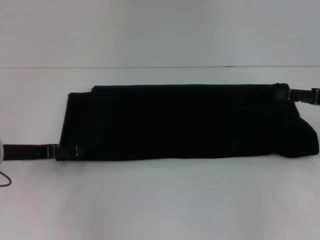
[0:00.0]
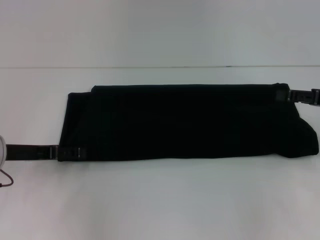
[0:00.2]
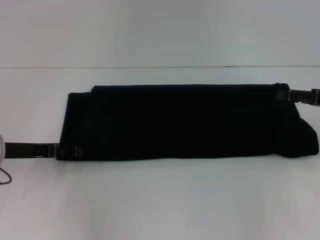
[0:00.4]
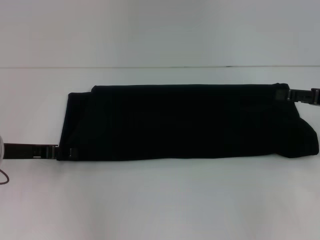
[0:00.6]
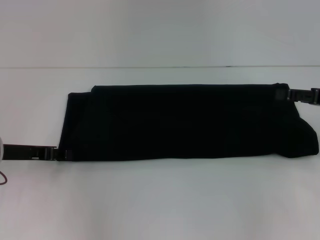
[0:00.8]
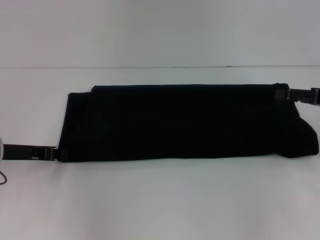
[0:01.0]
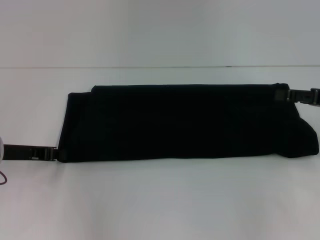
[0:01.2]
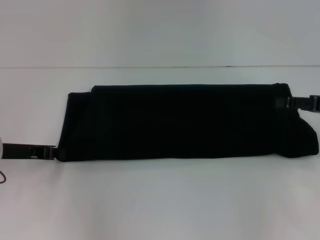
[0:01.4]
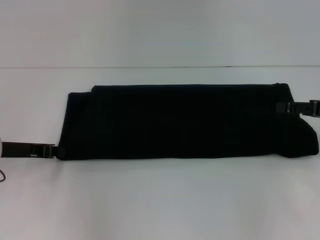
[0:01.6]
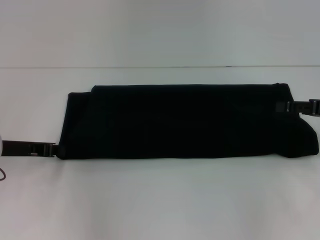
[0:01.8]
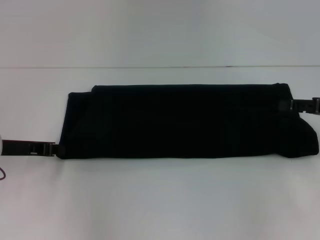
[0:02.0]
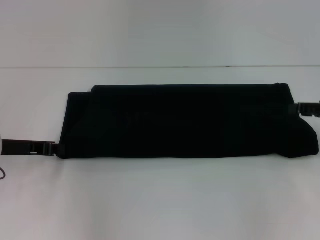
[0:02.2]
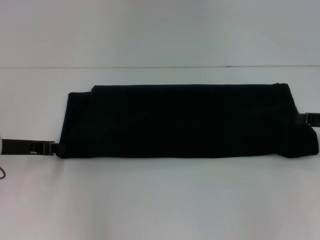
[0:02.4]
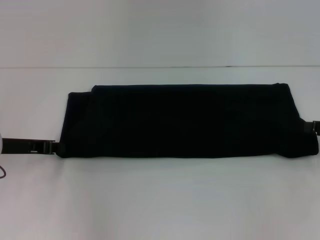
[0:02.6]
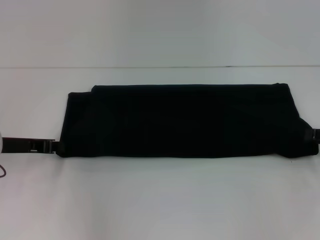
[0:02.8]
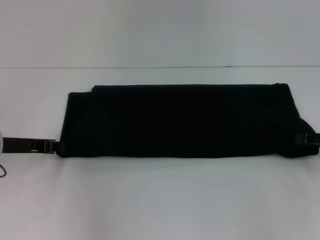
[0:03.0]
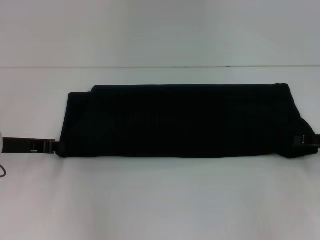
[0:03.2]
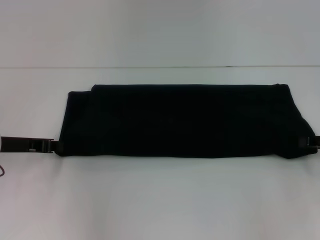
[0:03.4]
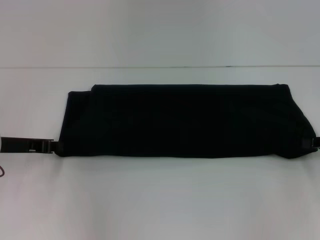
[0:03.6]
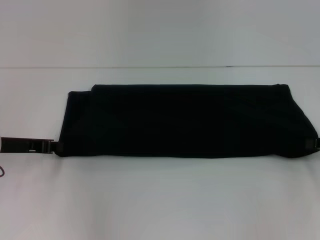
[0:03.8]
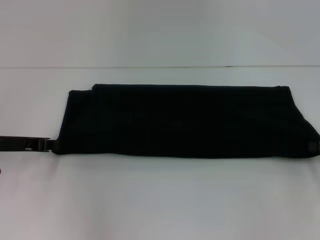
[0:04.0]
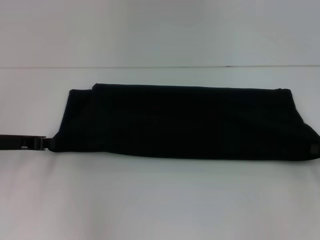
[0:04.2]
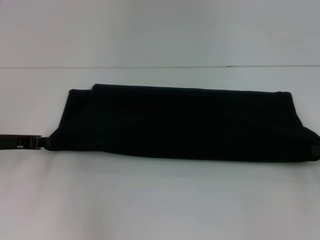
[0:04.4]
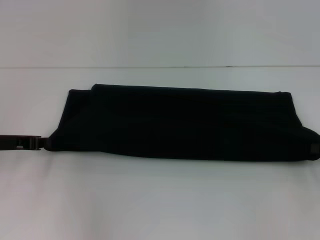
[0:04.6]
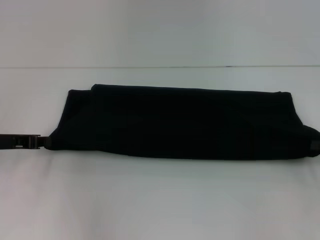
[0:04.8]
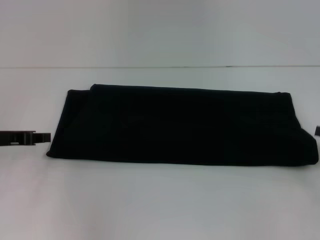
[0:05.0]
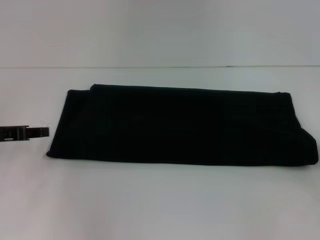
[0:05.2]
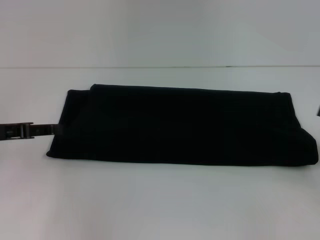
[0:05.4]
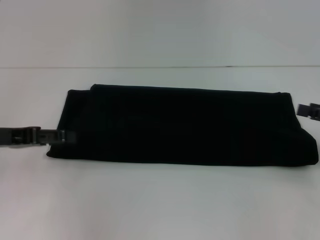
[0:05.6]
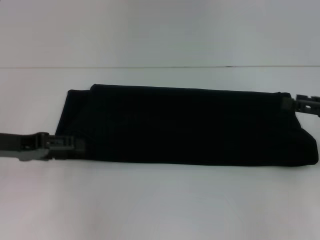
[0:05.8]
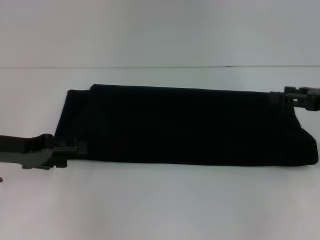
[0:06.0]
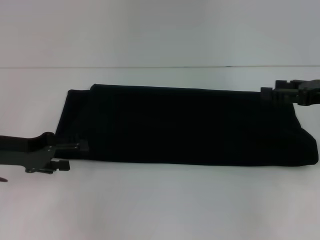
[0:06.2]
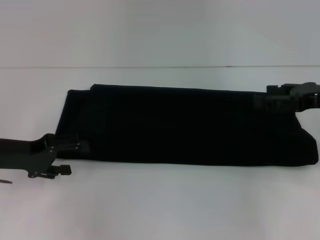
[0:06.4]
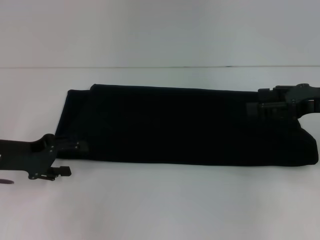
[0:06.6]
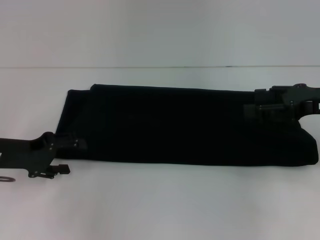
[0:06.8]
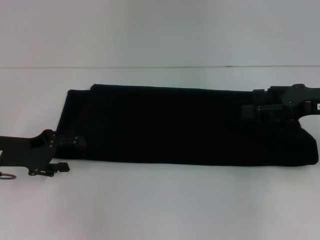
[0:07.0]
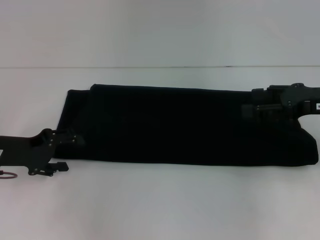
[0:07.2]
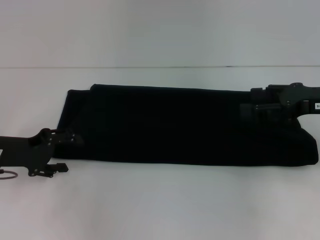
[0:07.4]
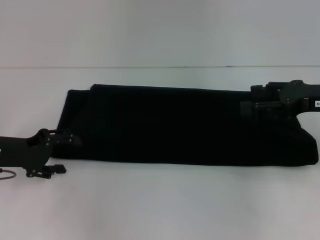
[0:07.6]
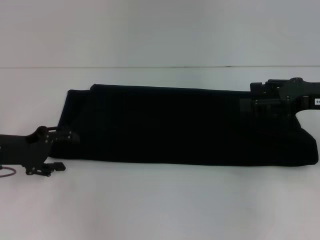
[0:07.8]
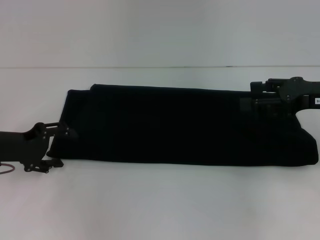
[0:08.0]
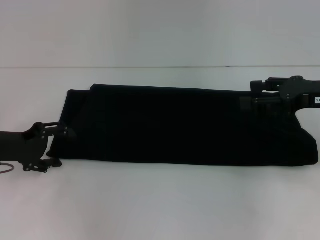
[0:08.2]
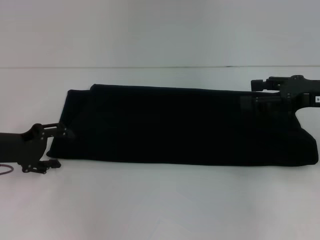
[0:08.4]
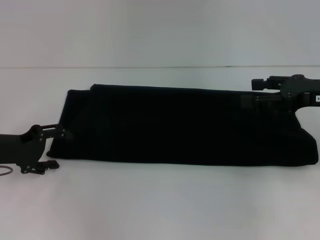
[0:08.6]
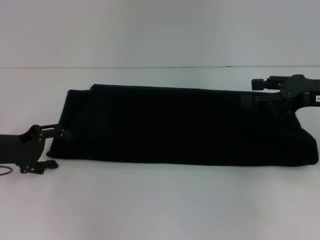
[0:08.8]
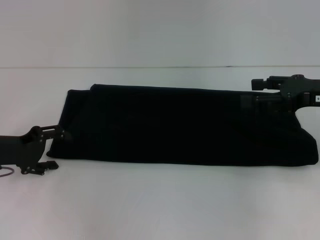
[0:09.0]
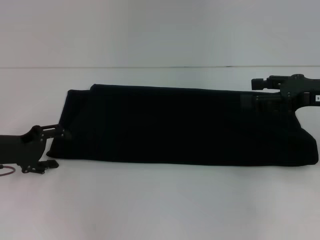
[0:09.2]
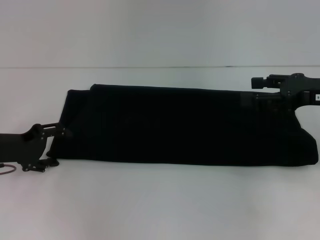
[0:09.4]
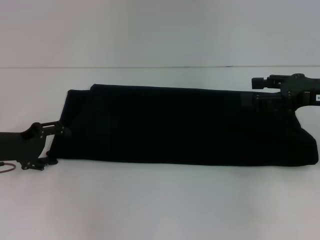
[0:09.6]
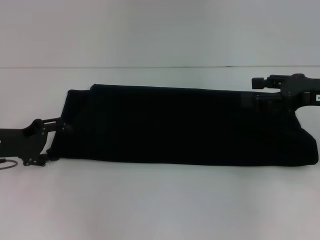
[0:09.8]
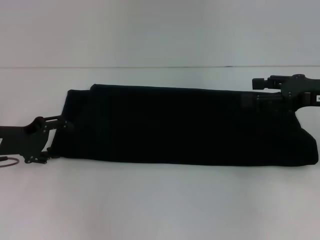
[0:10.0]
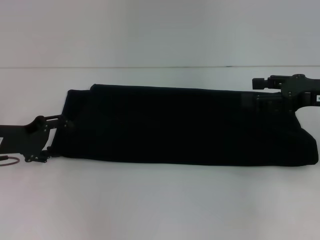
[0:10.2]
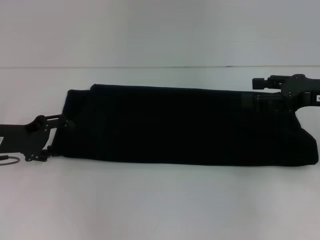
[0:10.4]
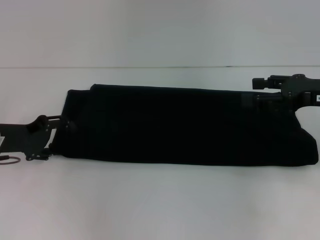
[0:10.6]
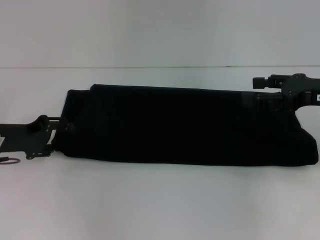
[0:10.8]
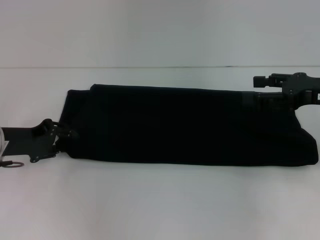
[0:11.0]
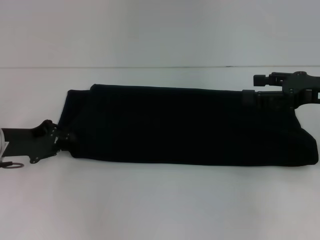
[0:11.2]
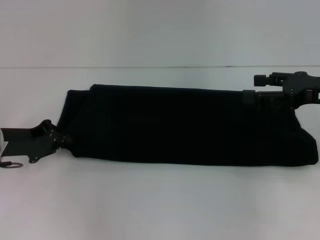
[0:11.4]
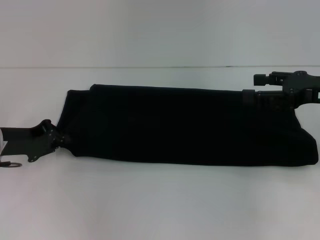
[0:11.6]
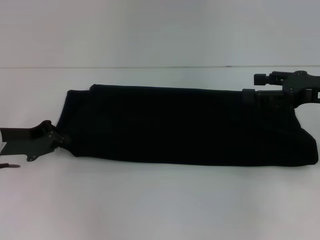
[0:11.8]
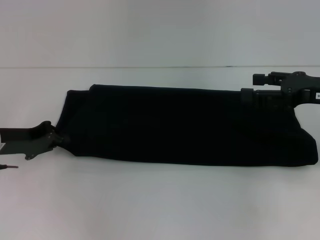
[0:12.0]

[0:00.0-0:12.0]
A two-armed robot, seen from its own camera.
0:00.0 to 0:01.6: The left gripper closes its fingers.
0:01.6 to 0:03.0: The right gripper moves approximately 5 cm.
0:03.0 to 0:04.4: The right gripper closes.
0:04.4 to 0:06.0: The left gripper opens up; the right gripper moves upward and to the left, some 10 cm, and opens up.
0:07.6 to 0:10.4: The grippers make only small movements.
0:10.4 to 0:12.0: The left gripper closes.

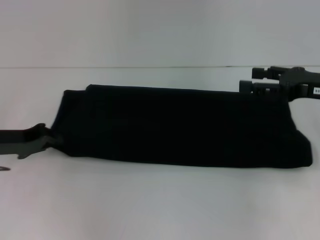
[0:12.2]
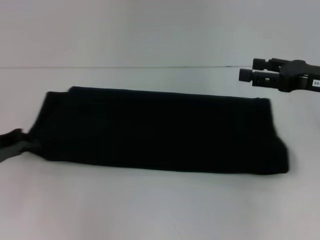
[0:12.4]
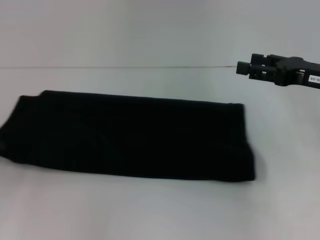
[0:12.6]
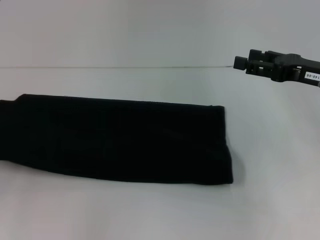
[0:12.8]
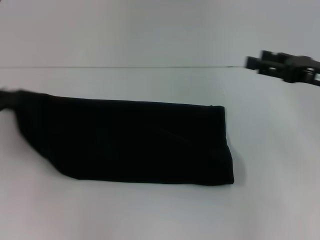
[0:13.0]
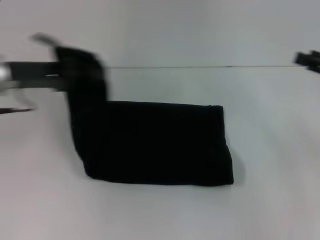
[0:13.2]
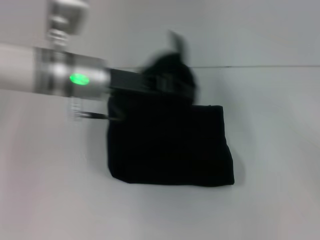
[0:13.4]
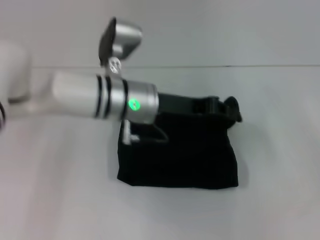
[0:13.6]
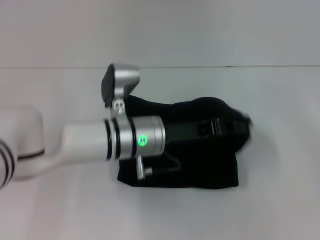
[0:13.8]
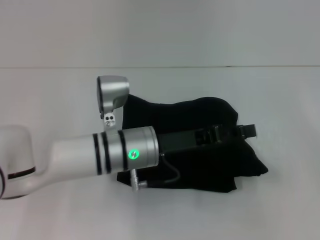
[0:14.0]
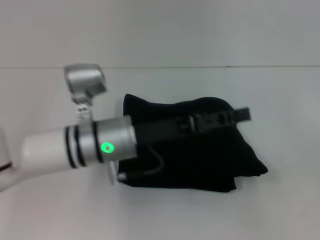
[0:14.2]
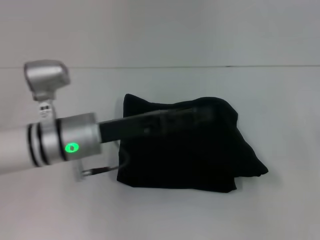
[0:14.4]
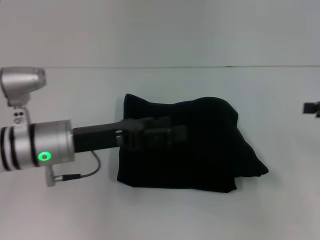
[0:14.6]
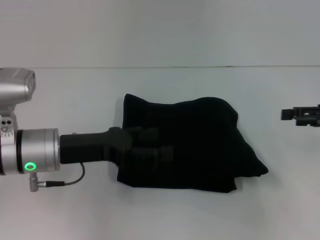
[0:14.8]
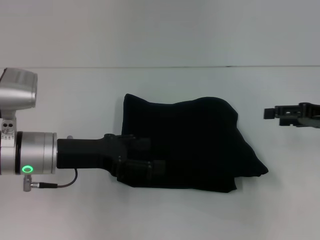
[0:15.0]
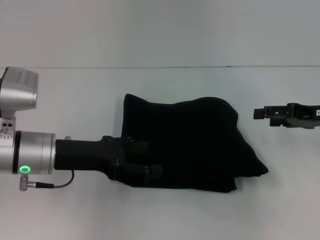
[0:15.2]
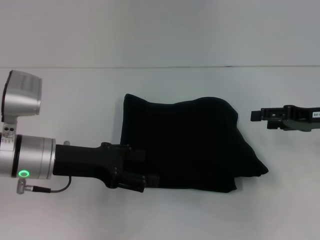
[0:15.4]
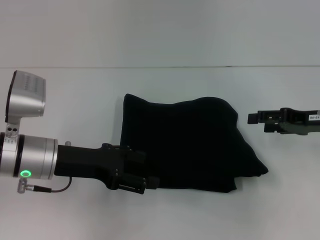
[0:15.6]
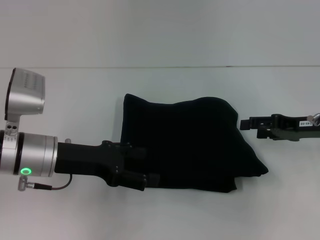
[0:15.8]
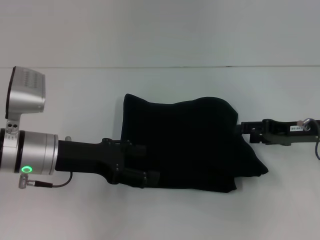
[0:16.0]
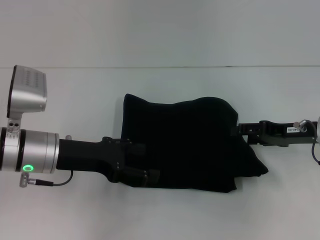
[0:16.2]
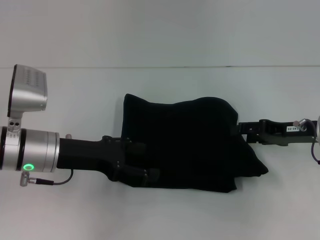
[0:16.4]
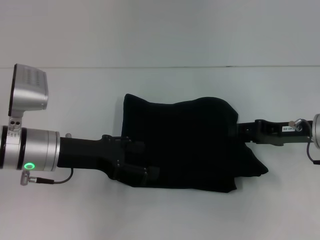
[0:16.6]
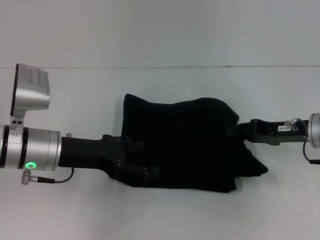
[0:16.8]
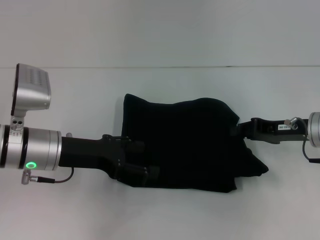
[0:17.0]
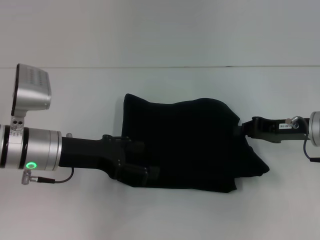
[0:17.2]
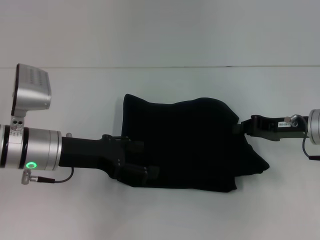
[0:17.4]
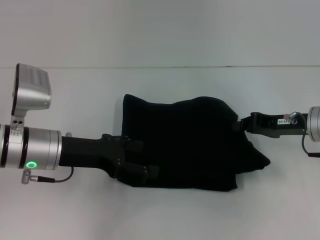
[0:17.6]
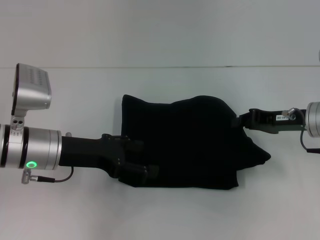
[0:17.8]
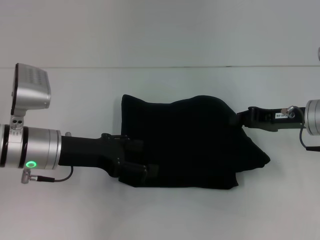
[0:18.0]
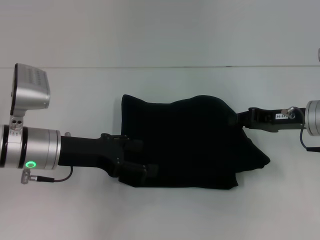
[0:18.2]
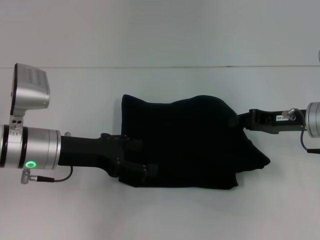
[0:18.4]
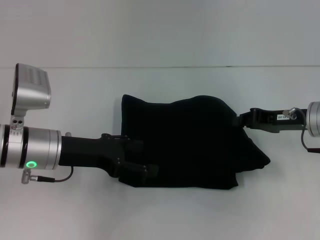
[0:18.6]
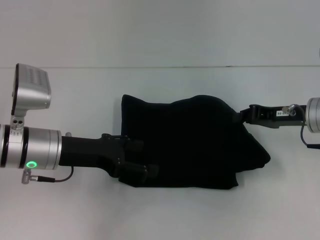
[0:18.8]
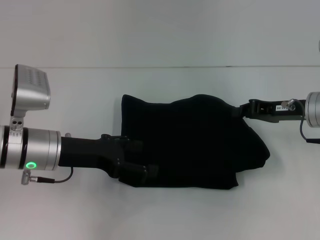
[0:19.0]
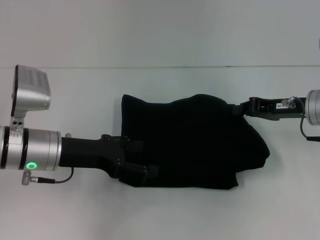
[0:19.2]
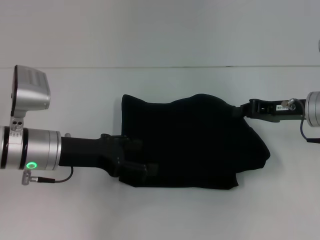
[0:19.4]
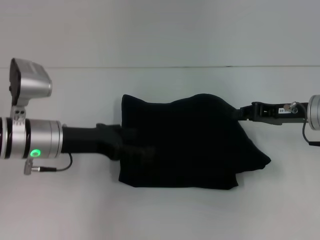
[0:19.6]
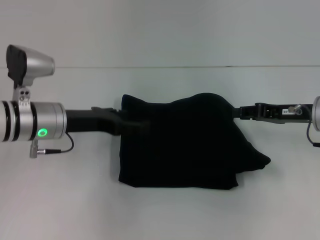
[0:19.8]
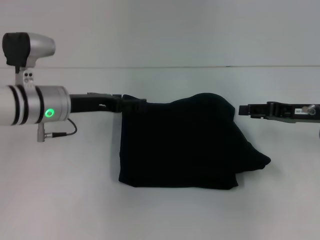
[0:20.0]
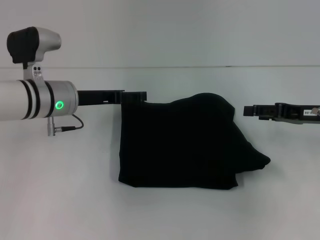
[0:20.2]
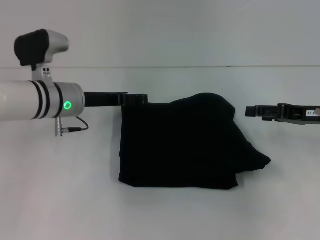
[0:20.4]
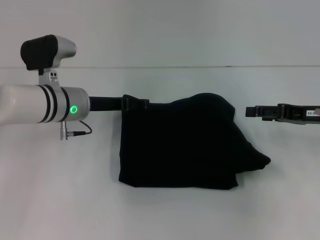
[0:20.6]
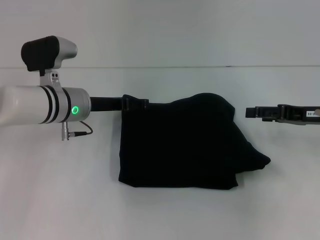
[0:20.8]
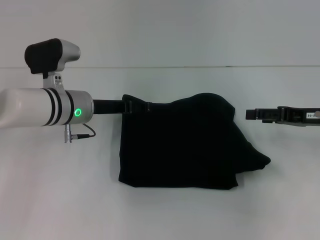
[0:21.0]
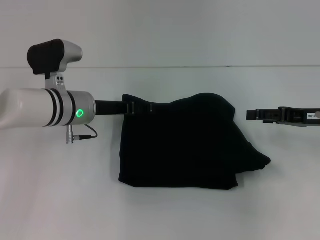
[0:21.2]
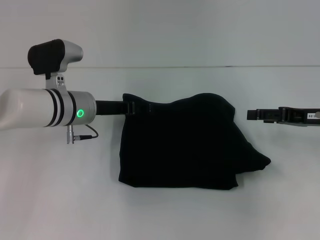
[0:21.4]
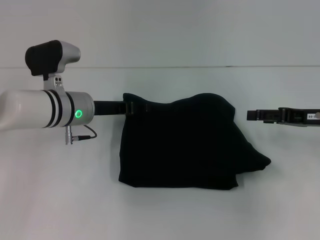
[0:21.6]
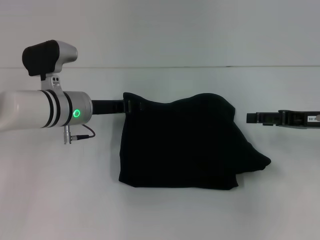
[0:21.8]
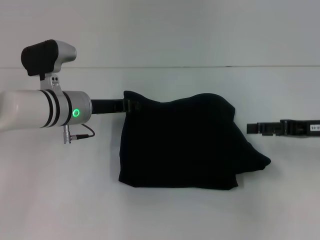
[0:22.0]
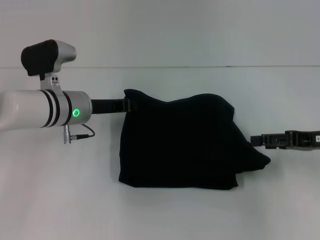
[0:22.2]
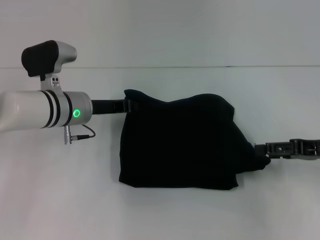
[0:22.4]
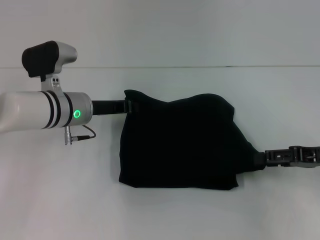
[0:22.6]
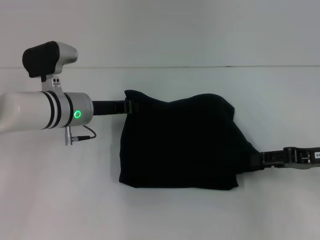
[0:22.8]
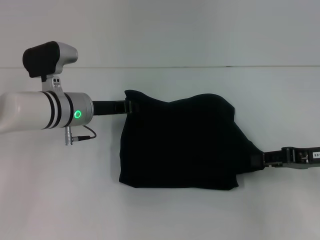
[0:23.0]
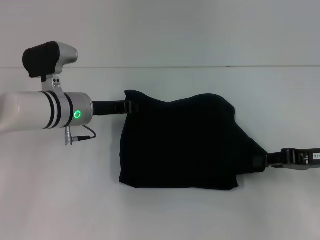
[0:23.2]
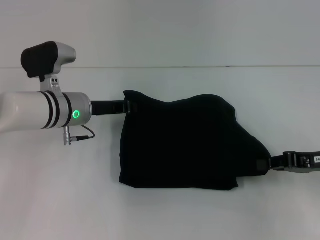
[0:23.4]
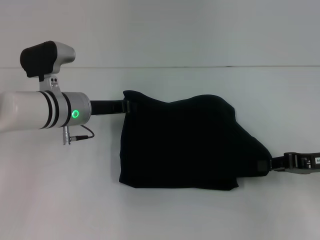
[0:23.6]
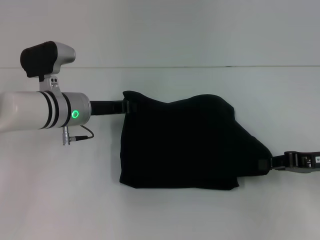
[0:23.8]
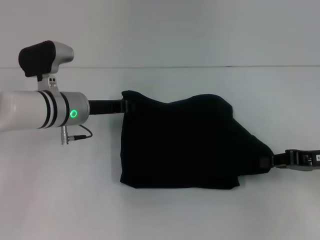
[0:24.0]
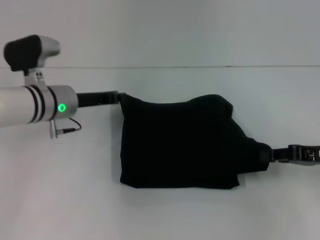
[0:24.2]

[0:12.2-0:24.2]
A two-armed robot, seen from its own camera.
0:12.2 to 0:13.8: The left gripper moves to the right, about 25 cm; the right gripper moves to the right and backward, some 20 cm.
0:13.8 to 0:15.2: The right gripper goes roughly 15 cm to the left and forward, while the left gripper shifts roughly 15 cm to the left, and opens.
0:15.2 to 0:16.6: The right gripper shifts by about 5 cm.
0:16.6 to 0:18.2: The right gripper closes its fingers.
0:18.2 to 0:19.8: The grippers make only small movements.
0:19.8 to 0:21.2: The right gripper opens. Meanwhile the left gripper changes place by some 5 cm.
0:21.2 to 0:22.6: The left gripper closes.
0:22.6 to 0:24.2: The right gripper closes.
